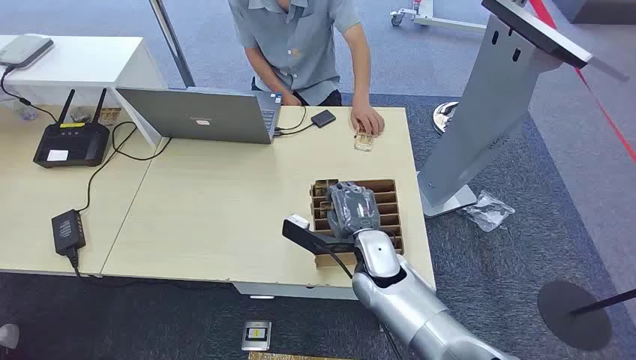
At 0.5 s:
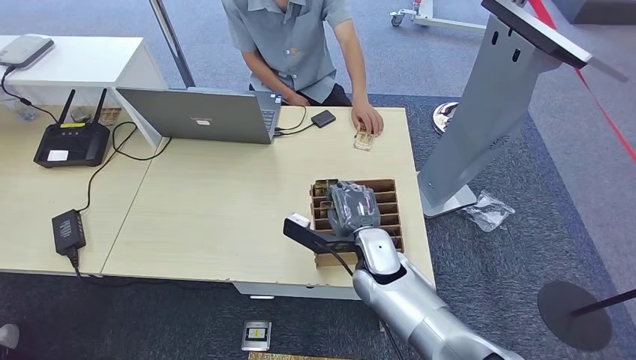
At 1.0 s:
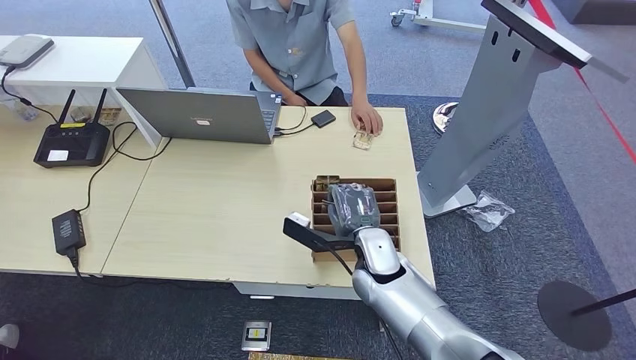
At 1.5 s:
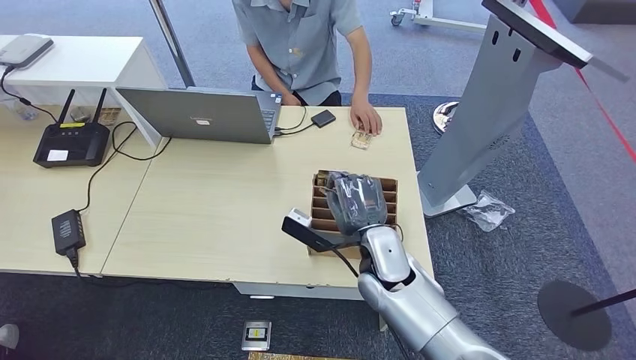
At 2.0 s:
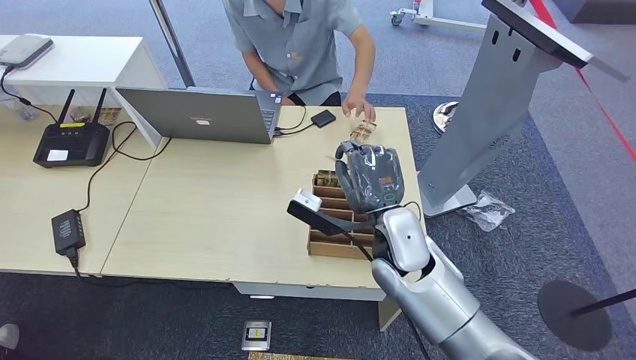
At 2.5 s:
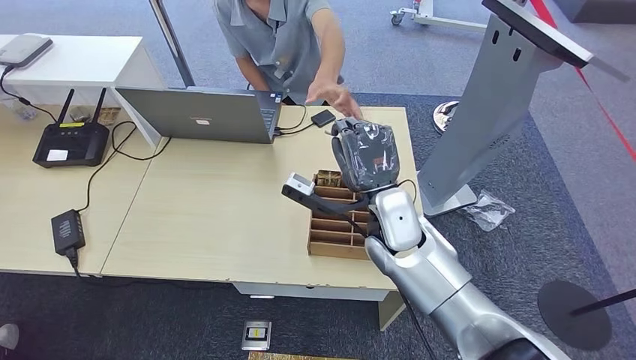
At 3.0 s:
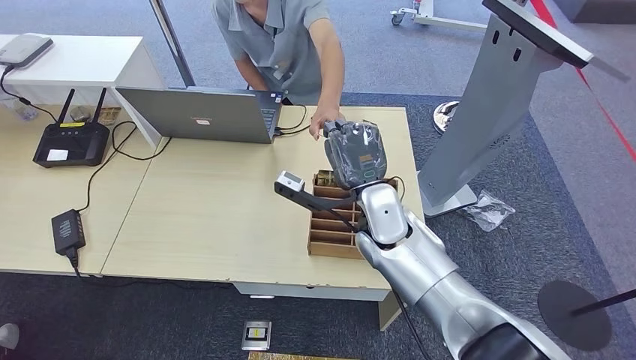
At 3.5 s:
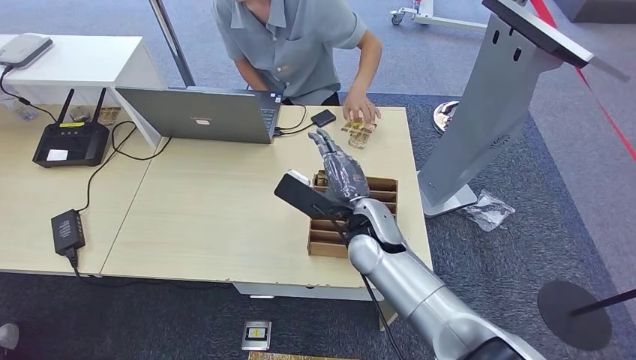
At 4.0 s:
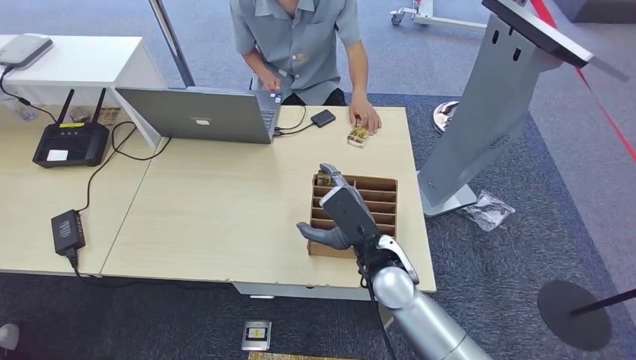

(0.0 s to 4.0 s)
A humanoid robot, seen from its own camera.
Step, 0.0 s - 2.0 s: Pick up the key card from the card box.
Step, 2.5 s - 4.0 s: Hand the key card to the target.
2.0 s - 4.0 s: The right hand shifts some 5 cm downward.
